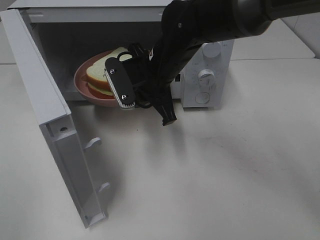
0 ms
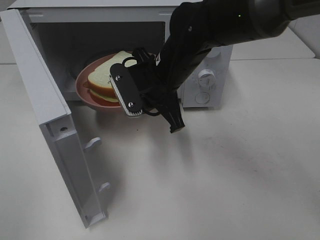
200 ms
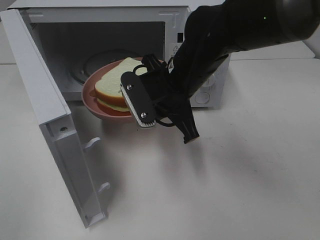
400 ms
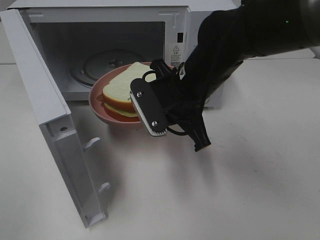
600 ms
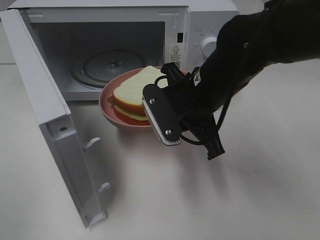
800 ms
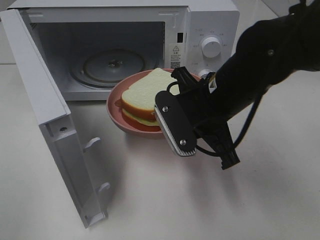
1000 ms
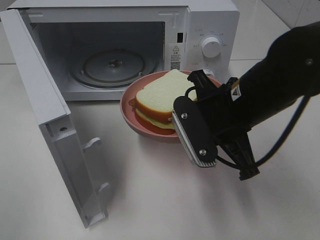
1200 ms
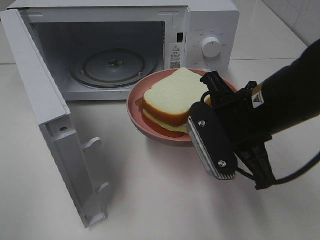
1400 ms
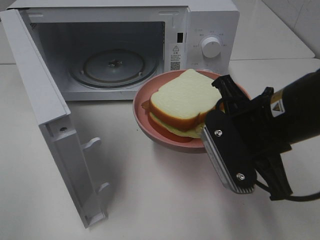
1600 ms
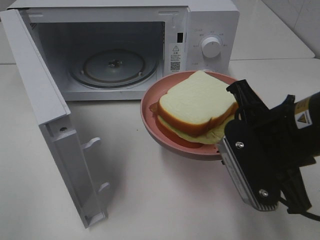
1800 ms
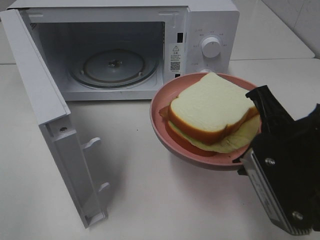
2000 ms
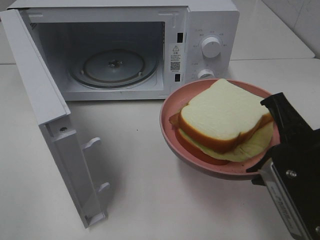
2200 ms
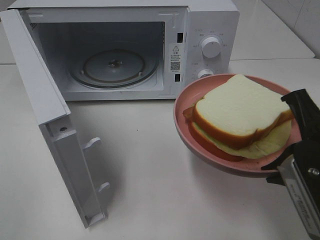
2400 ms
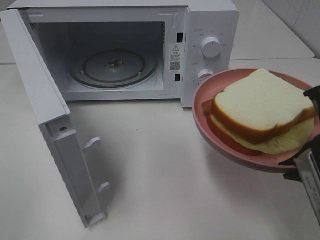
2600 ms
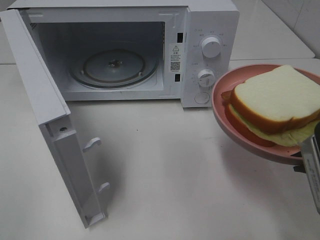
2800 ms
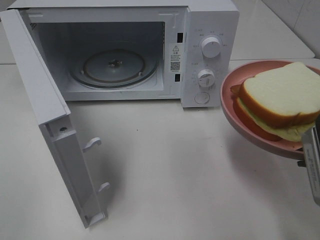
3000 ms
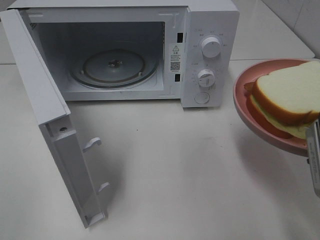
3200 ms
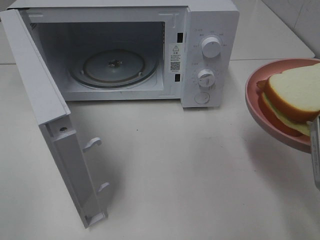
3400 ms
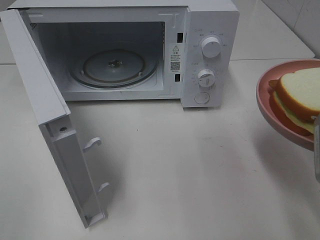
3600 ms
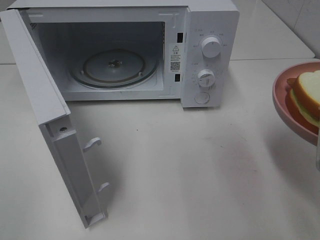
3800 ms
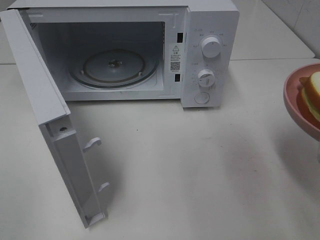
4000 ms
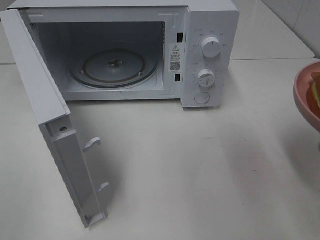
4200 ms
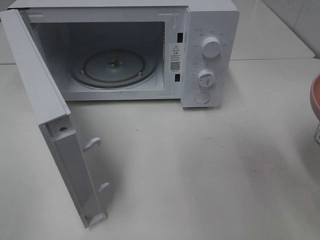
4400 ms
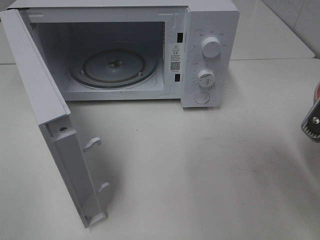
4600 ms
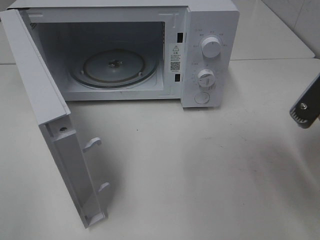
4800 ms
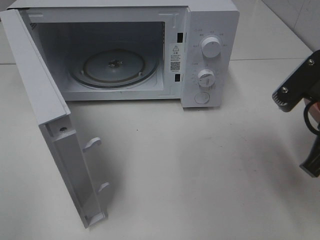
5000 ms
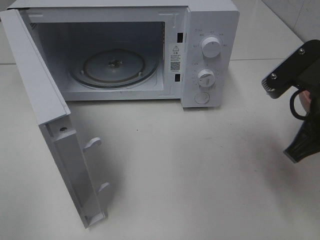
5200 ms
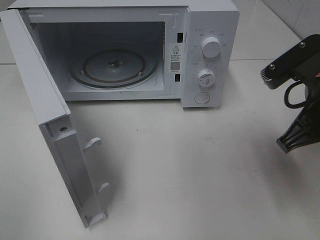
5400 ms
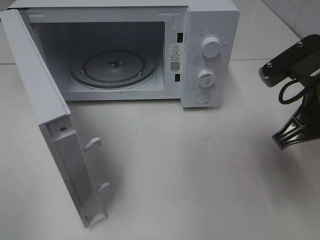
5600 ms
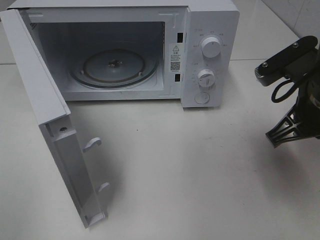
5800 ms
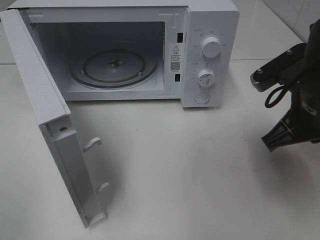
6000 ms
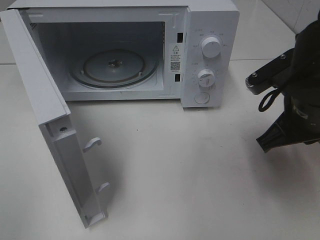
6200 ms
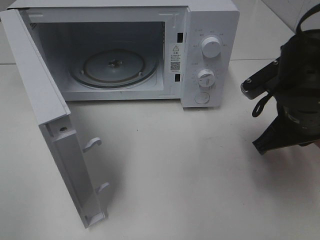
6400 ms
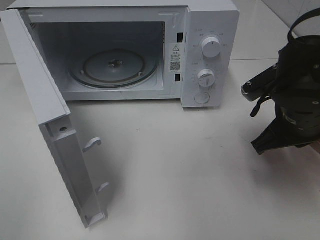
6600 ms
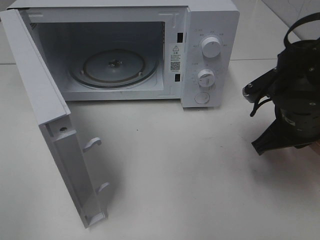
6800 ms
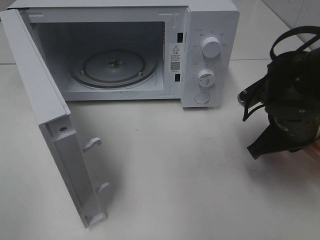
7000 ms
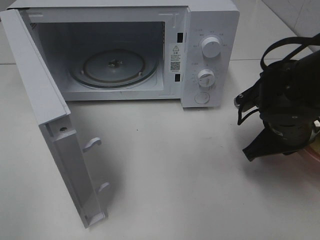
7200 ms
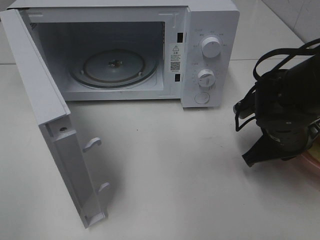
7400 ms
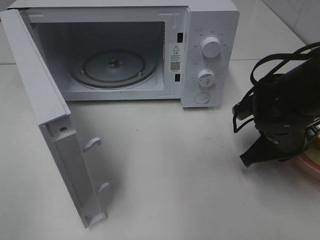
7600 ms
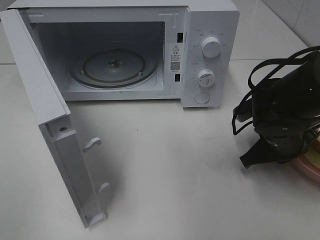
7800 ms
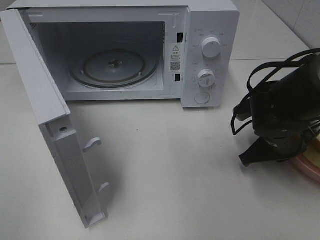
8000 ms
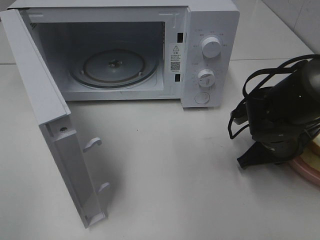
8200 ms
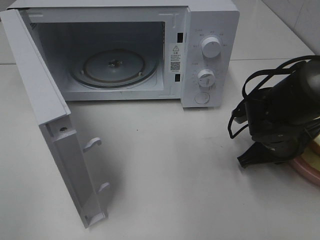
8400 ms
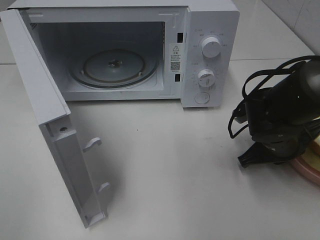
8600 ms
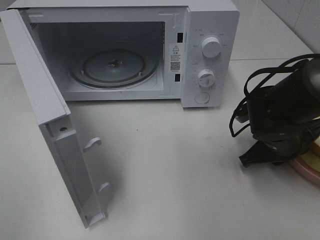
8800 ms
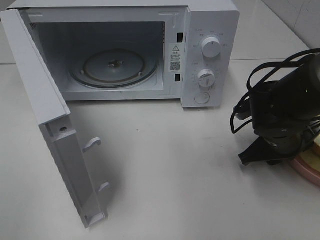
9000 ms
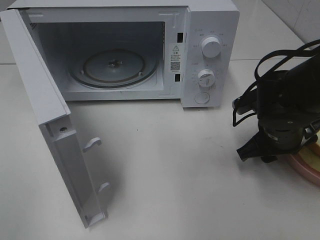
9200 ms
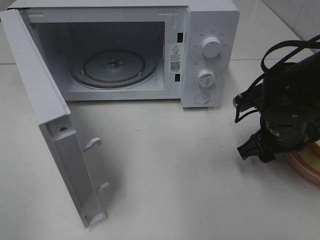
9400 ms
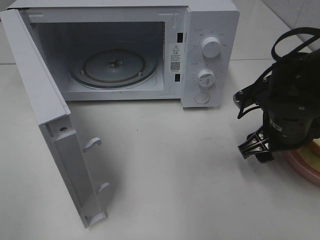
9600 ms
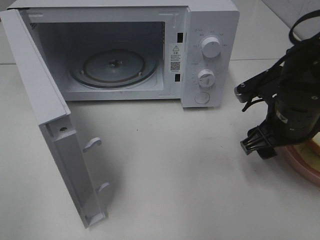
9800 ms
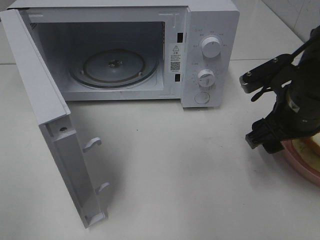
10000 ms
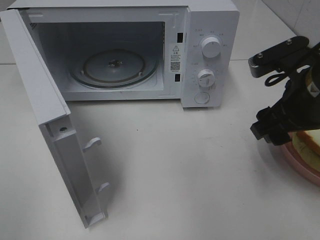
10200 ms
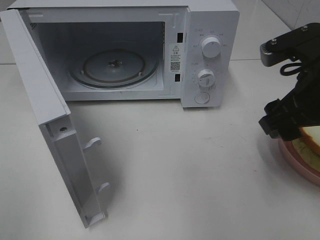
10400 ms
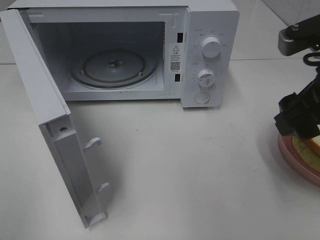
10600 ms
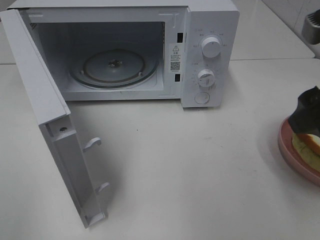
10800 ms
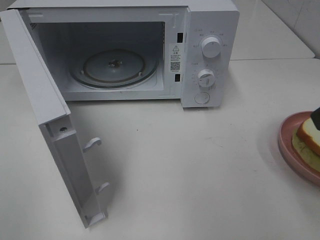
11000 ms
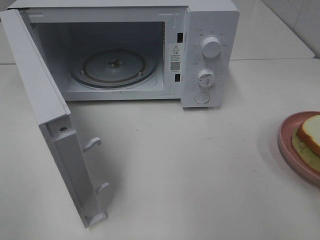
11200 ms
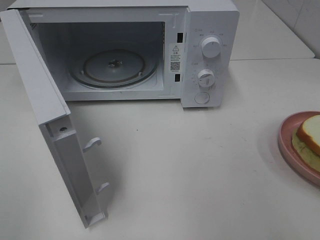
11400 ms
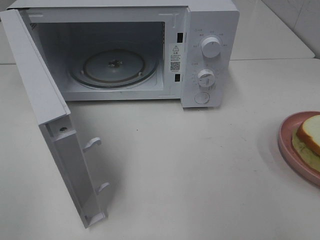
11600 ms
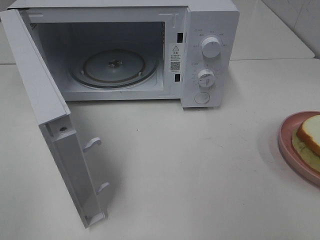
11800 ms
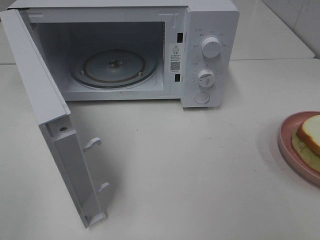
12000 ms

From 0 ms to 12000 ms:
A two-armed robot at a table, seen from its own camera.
Task of the whole recording: Heat Sandwich.
Step, from 0 ms to 10400 ms: Right hand: place the plate on the table.
From 0 ms to 1600 ms: The right gripper goes roughly 20 cm backward and to the right.
From 1600 ms to 3000 ms: The right gripper shifts roughly 10 cm to the right and backward.
From 4400 ms to 6000 ms: The right gripper shifts approximately 10 cm forward and to the left.
From 6000 ms to 7600 ms: The right gripper travels downward by some 10 cm.
From 7600 ms to 9000 ms: The right gripper opens up.
From 9000 ms to 10400 ms: The right gripper goes some 15 cm upward, and opens its fingers.
From 10400 ms to 12000 ms: The right gripper shifts approximately 20 cm backward and to the right.

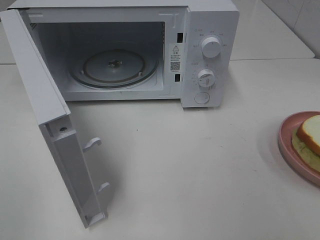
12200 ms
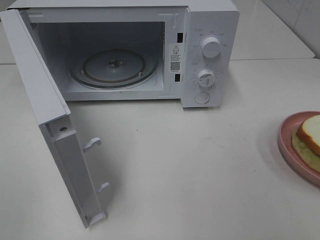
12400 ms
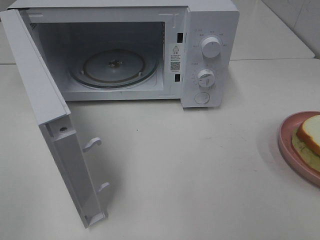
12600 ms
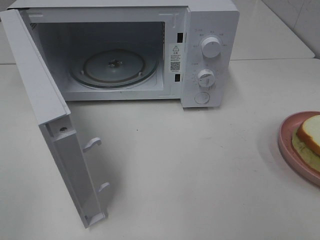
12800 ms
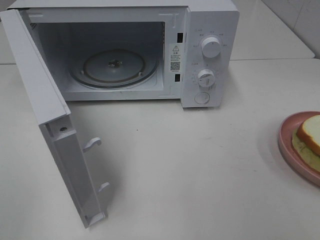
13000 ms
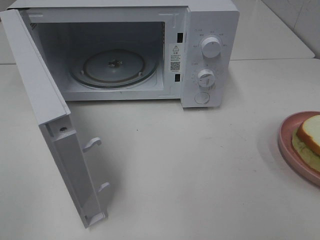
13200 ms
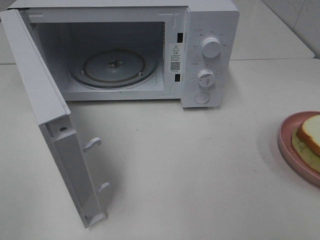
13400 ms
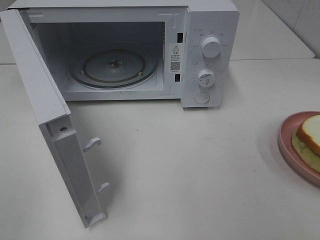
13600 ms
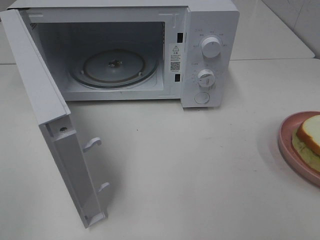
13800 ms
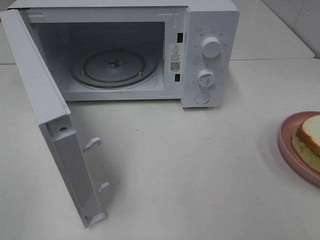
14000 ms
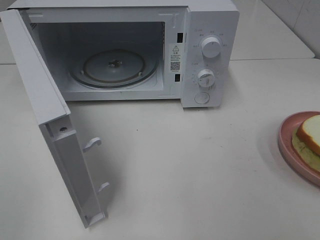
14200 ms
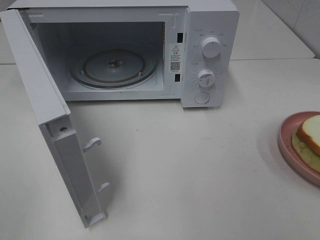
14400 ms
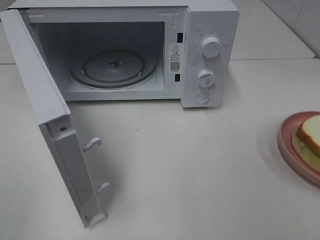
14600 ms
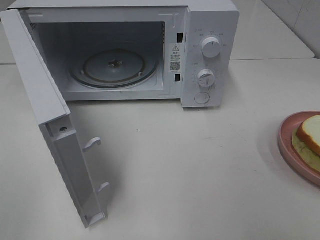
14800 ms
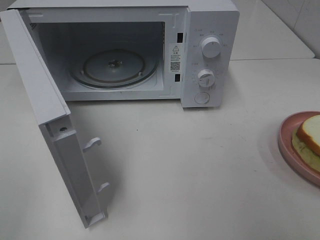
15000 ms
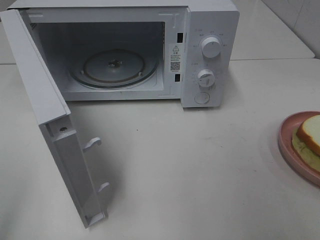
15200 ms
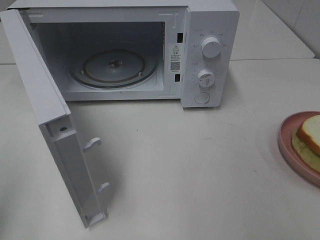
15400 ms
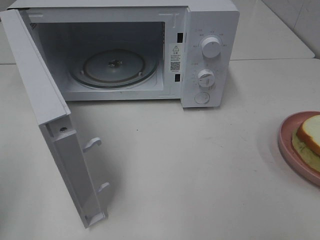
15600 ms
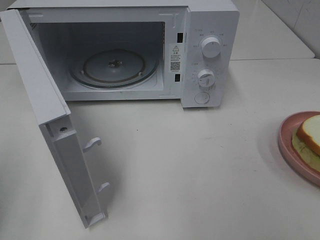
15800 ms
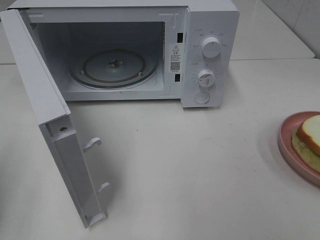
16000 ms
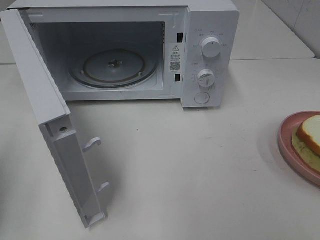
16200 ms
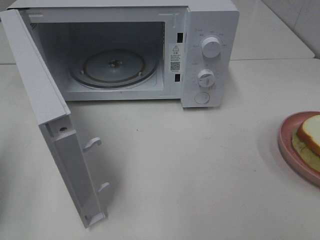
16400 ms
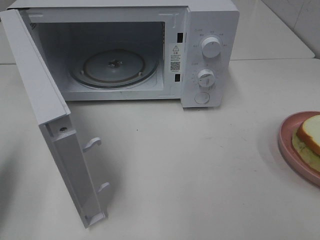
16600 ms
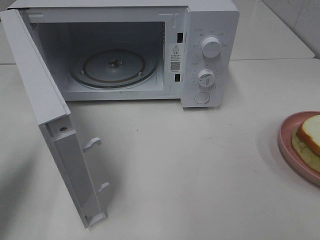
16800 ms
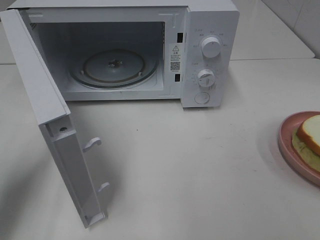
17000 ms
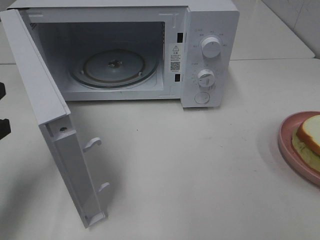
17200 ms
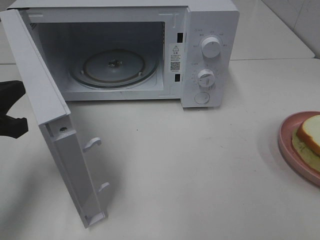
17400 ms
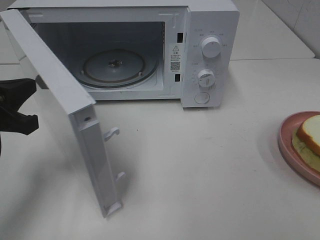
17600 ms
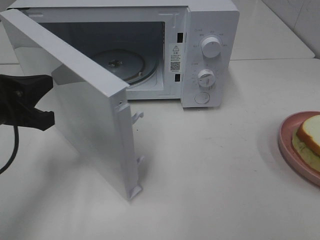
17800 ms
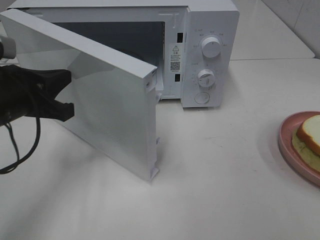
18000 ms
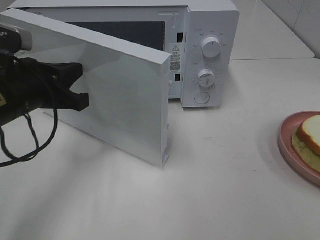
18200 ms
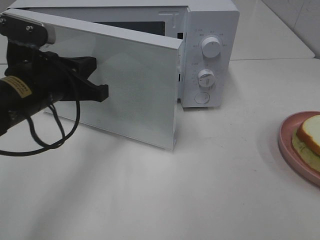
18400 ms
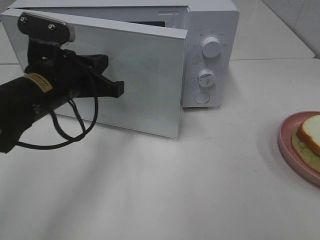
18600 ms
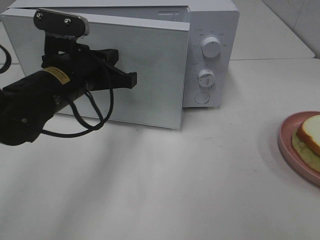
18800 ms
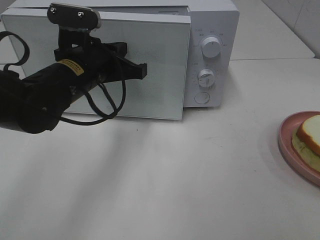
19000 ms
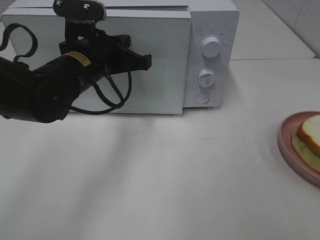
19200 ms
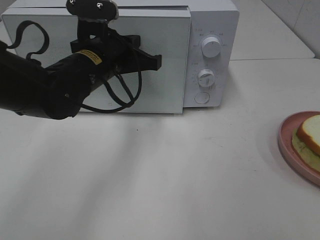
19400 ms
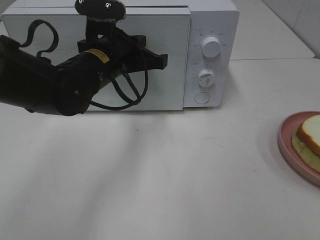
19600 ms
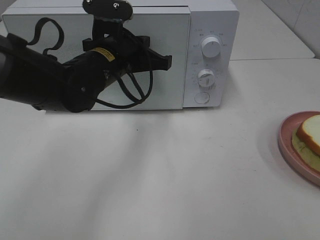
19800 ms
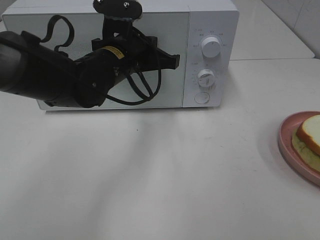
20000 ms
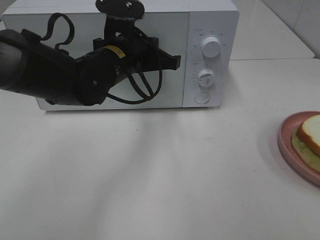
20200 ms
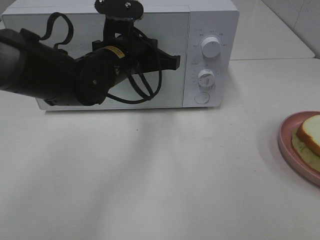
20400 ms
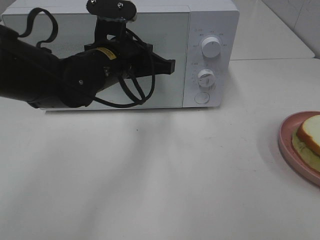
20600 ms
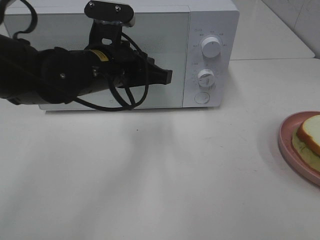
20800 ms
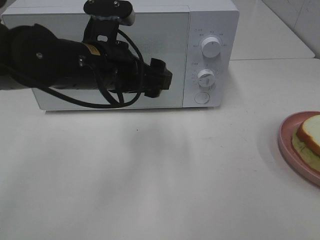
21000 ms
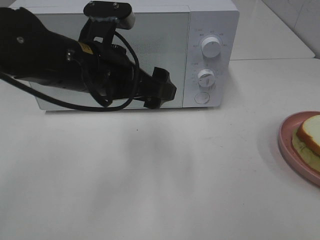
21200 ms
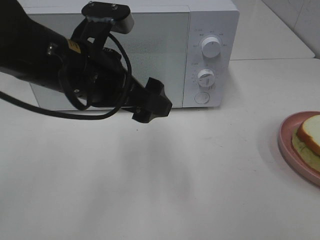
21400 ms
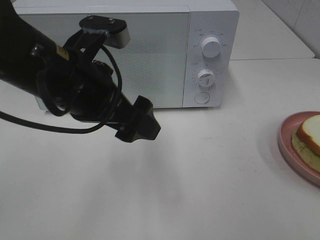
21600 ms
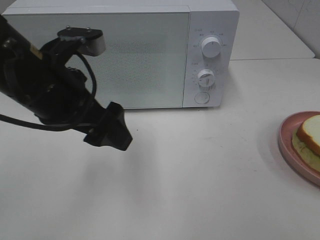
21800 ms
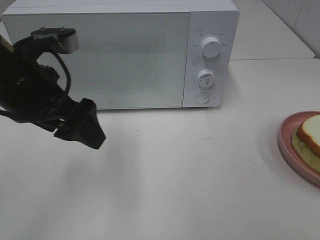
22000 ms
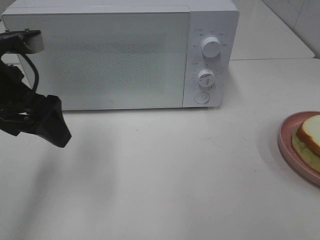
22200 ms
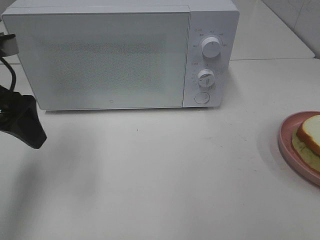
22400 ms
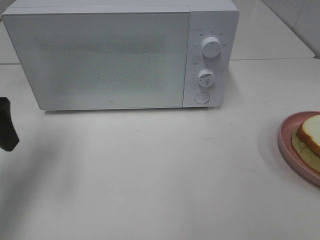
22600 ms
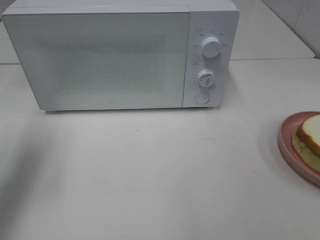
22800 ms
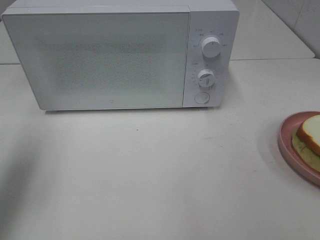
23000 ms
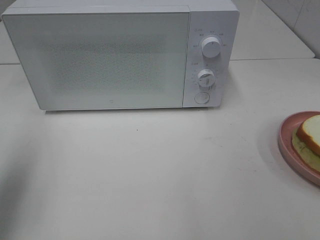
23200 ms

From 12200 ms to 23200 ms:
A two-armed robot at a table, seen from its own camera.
Task of the whole recording: Heat Sandwich.
Step, from 12200 ms to 20600 ms: Left hand: close the microwave door.
From 15400 ms to 17000 ms: The left gripper heads forward and downward, covering about 15 cm, and closes up.
From 17000 ms to 18400 ms: The left gripper travels to the right and forward by roughly 15 cm.
From 18400 ms to 20000 ms: The left gripper heads to the right and forward, covering roughly 15 cm.
From 20000 ms to 21600 ms: The left gripper travels backward and upward by approximately 15 cm, and opens up.
From 21600 ms to 23200 ms: The left gripper shifts some 20 cm to the left.
